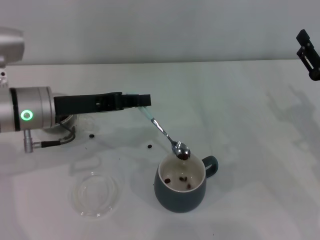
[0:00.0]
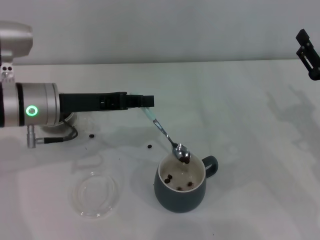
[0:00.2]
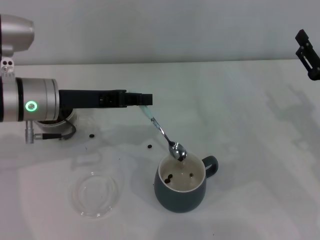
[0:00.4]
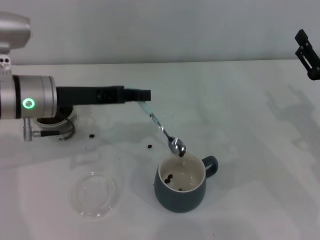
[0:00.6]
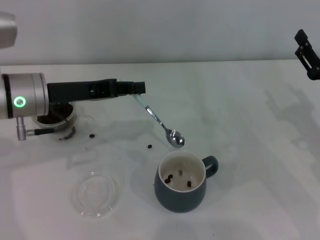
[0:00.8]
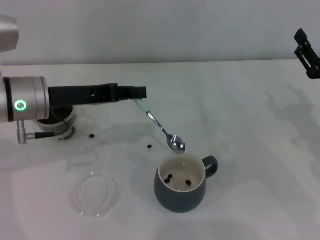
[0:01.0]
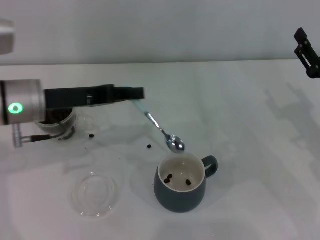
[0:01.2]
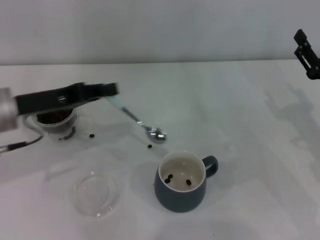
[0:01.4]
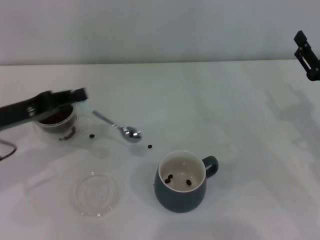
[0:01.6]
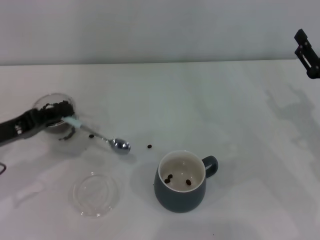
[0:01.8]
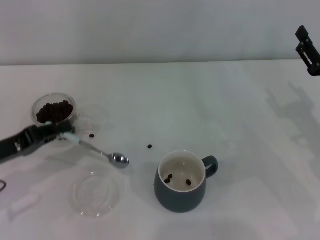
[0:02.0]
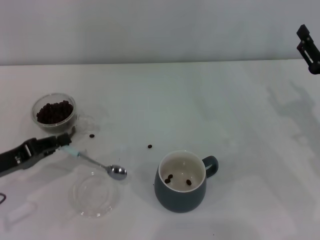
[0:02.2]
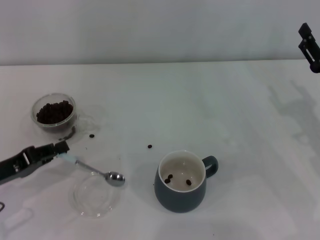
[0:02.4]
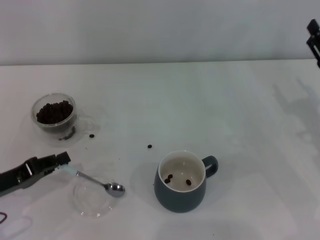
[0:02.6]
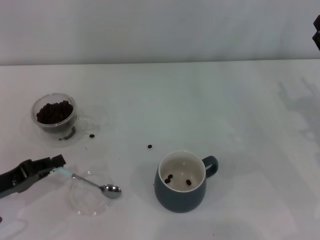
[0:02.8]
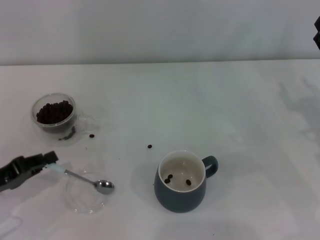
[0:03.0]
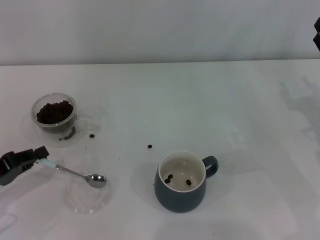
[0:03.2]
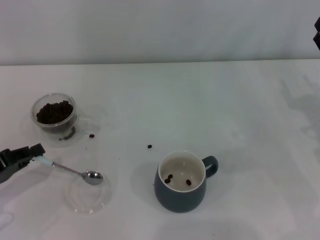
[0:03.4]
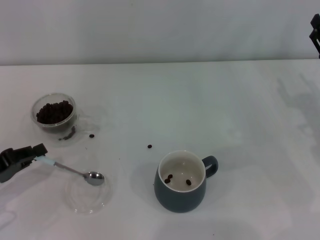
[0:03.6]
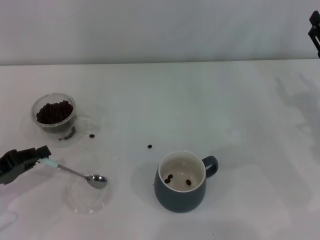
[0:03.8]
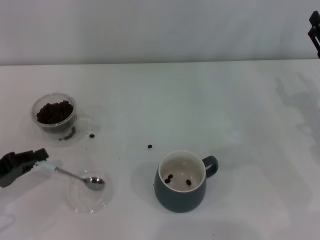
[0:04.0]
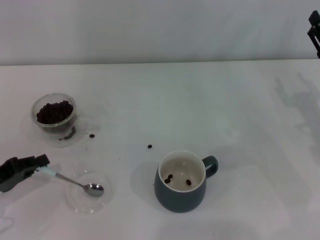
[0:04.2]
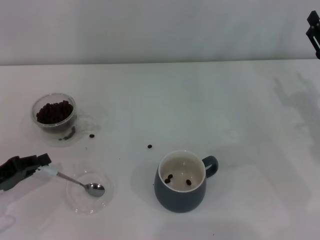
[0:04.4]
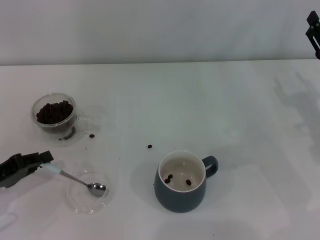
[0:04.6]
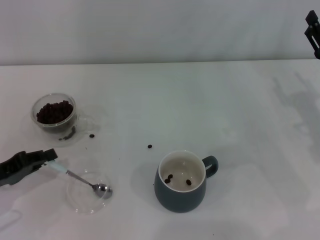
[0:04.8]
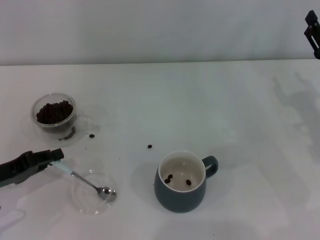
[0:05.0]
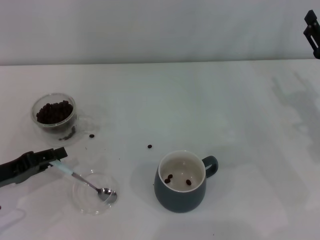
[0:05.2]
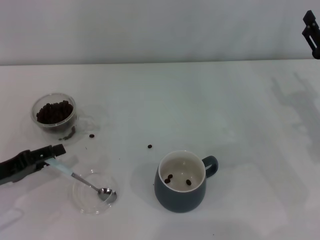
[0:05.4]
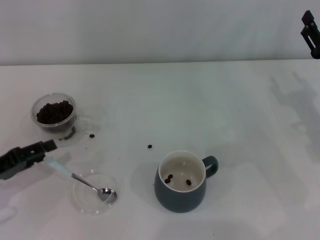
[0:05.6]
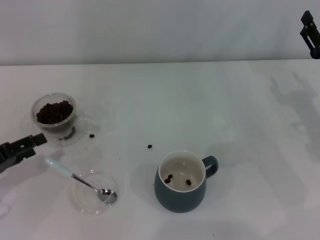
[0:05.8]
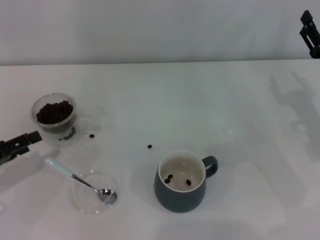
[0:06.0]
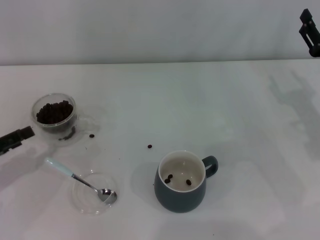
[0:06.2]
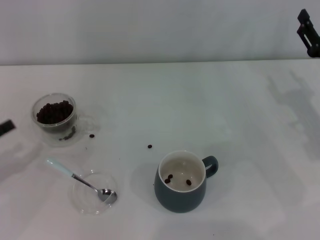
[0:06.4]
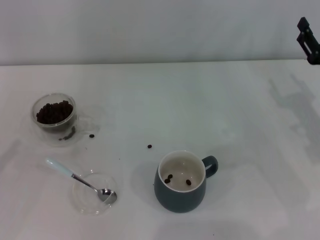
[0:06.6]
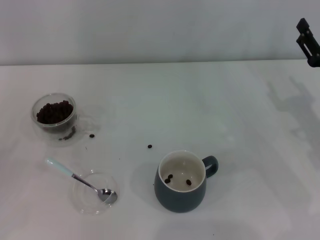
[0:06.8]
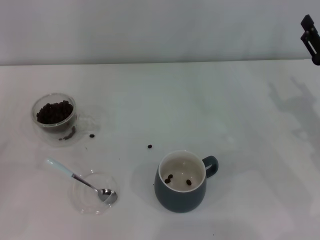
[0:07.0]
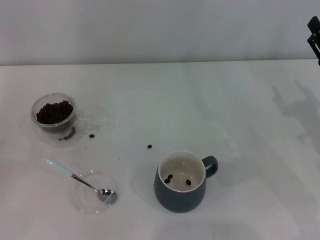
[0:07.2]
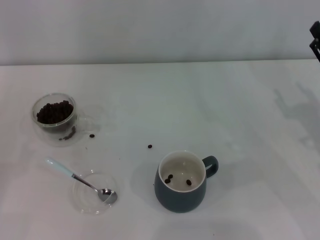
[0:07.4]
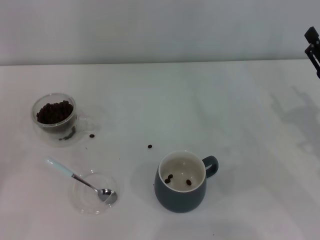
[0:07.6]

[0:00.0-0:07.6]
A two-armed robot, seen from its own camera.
Task of the whole recording: Use a blue spoon to take out the coffee beans from the glass and pour them into the gray cup.
Step, 0:01.4 to 0:05.8: Place the spoon back in its original place with the right gripper.
0:00.0 to 0:01.6: The left gripper travels to the left by roughly 10 cm.
0:01.6 to 0:03.0: The left gripper shifts about 10 cm downward and backward.
0:03.0 to 0:04.6: The grippers stay close to where they were, moving slightly.
0:04.6 to 0:06.0: The left gripper opens its fingers.
0:06.0 to 0:07.6: The left gripper is displaced to the left and backward by roughly 10 cm.

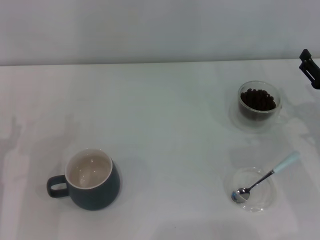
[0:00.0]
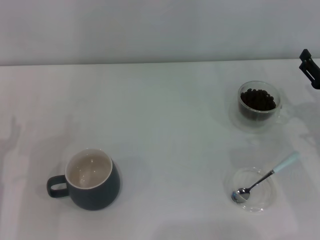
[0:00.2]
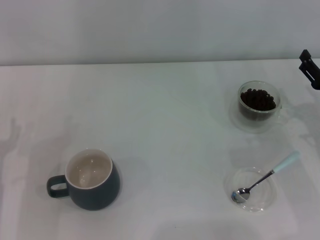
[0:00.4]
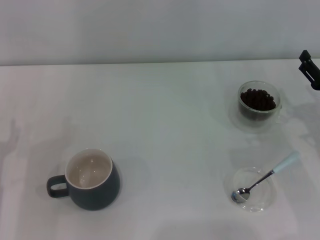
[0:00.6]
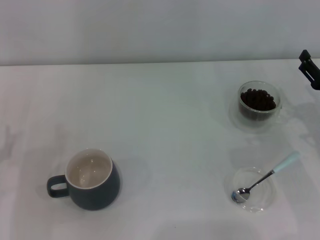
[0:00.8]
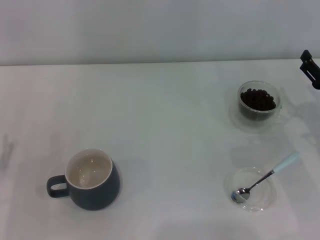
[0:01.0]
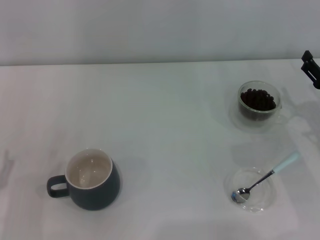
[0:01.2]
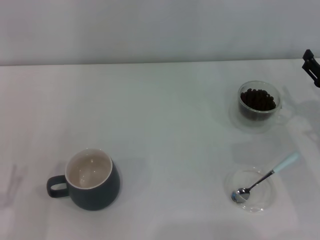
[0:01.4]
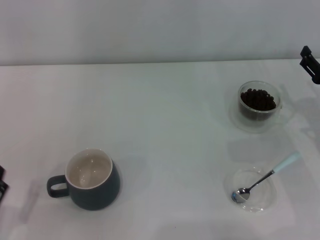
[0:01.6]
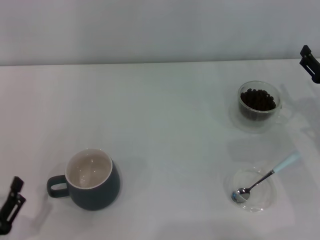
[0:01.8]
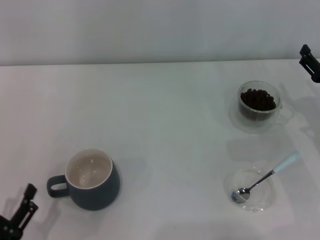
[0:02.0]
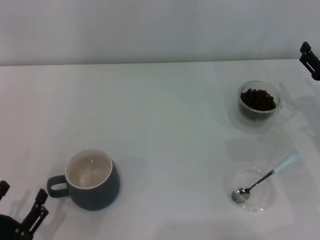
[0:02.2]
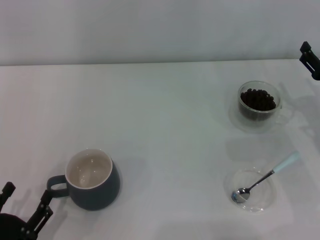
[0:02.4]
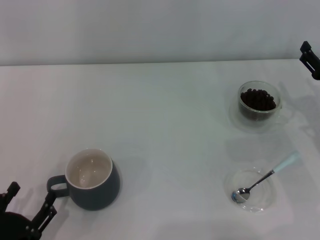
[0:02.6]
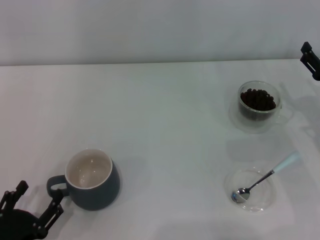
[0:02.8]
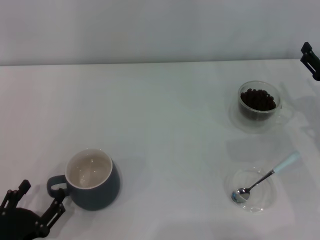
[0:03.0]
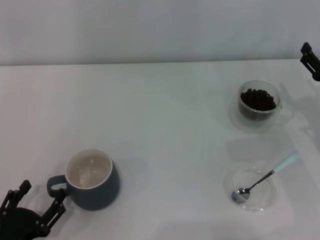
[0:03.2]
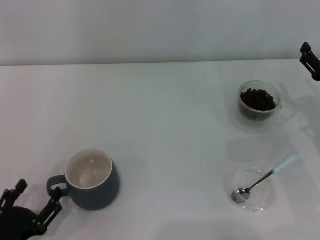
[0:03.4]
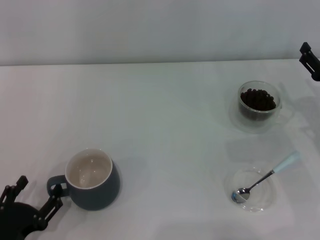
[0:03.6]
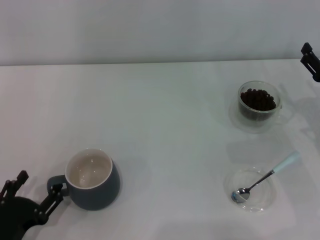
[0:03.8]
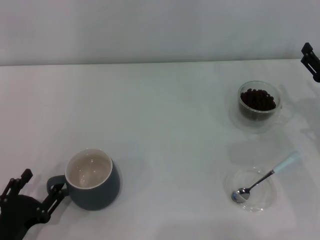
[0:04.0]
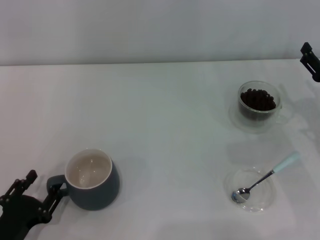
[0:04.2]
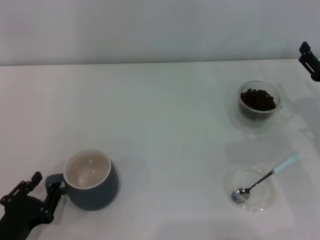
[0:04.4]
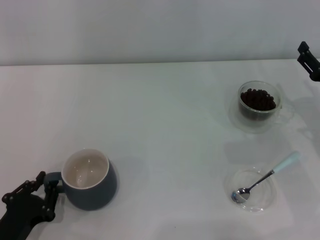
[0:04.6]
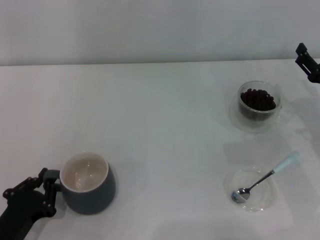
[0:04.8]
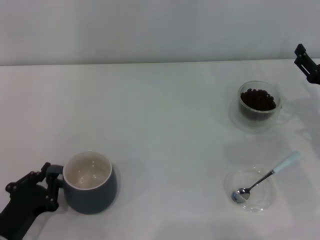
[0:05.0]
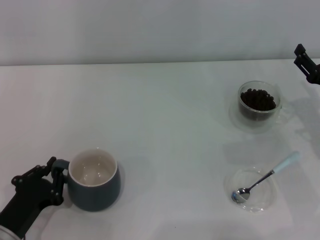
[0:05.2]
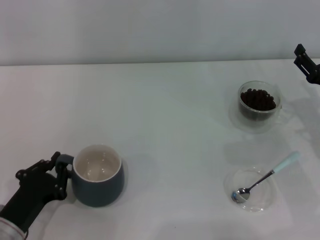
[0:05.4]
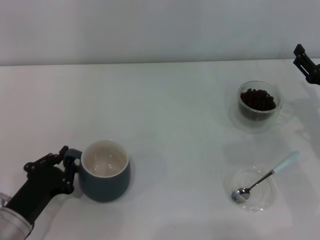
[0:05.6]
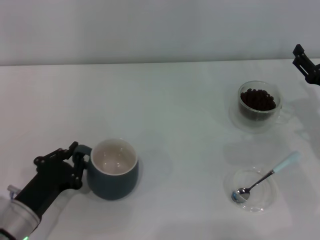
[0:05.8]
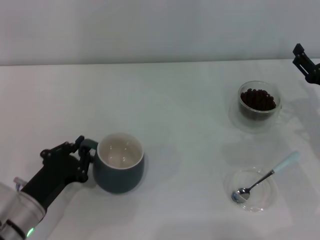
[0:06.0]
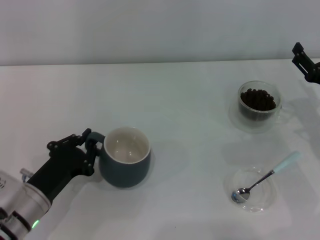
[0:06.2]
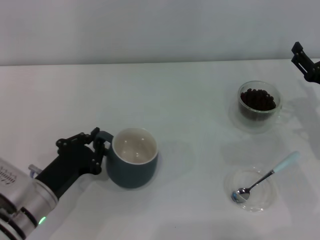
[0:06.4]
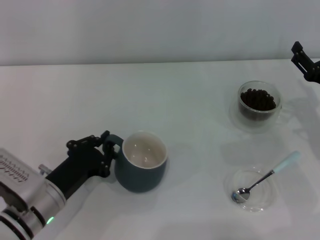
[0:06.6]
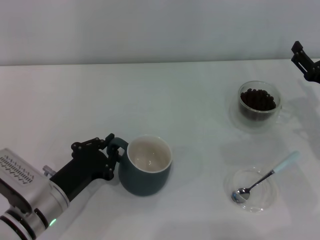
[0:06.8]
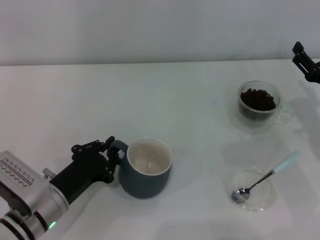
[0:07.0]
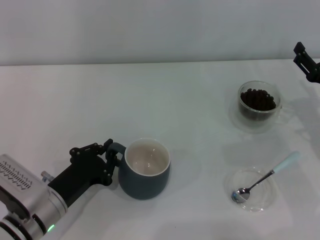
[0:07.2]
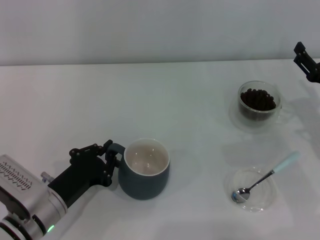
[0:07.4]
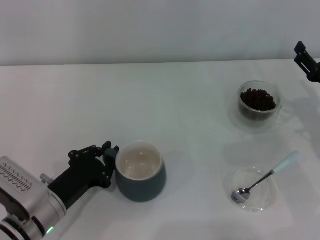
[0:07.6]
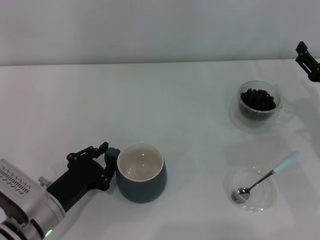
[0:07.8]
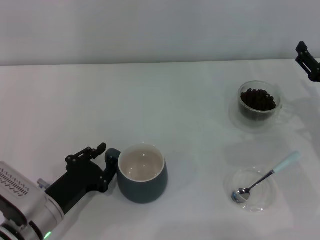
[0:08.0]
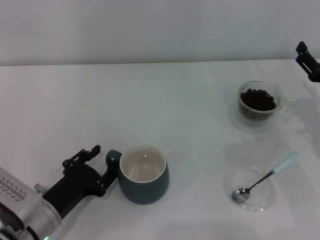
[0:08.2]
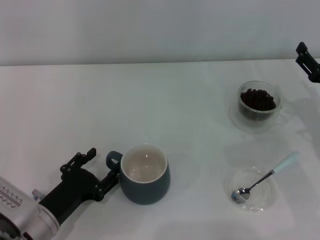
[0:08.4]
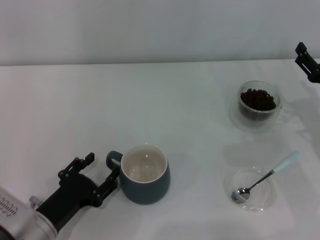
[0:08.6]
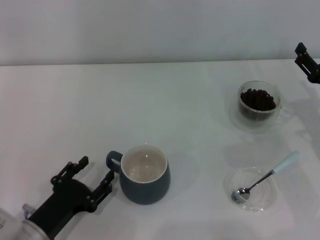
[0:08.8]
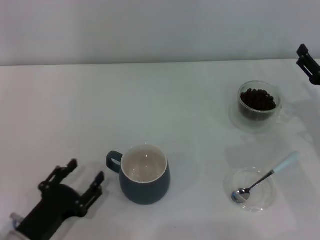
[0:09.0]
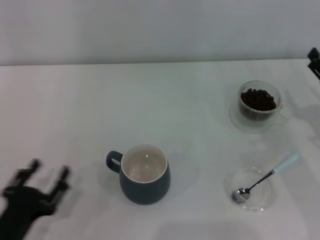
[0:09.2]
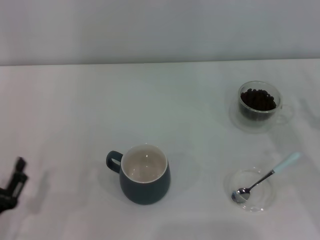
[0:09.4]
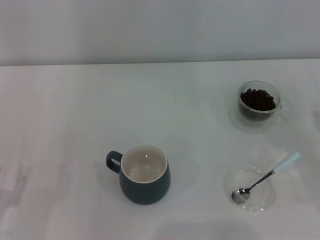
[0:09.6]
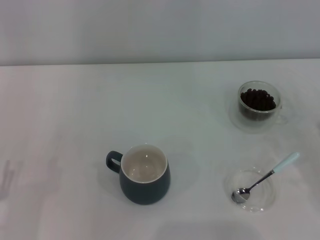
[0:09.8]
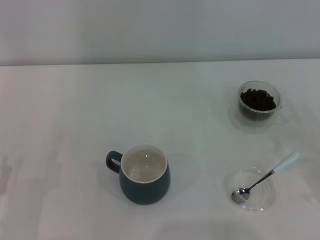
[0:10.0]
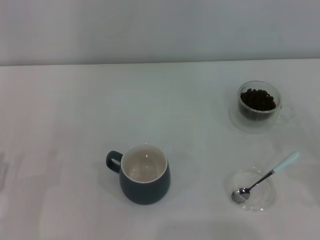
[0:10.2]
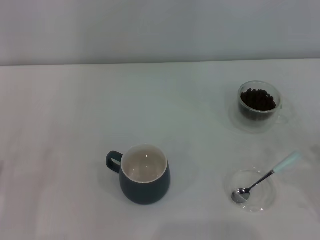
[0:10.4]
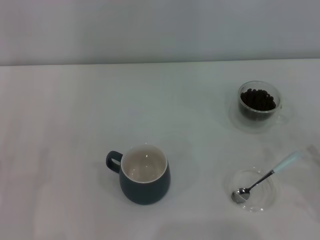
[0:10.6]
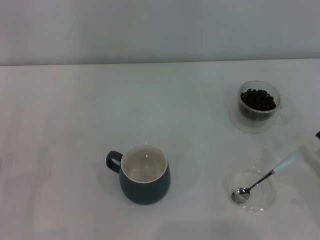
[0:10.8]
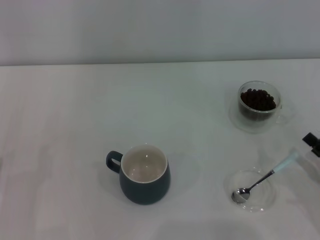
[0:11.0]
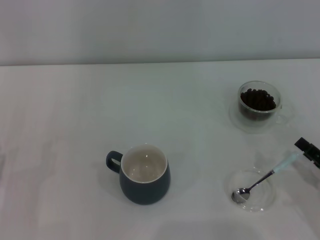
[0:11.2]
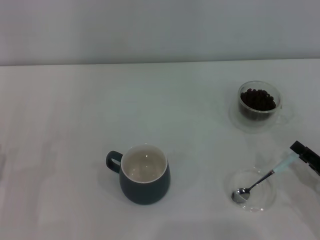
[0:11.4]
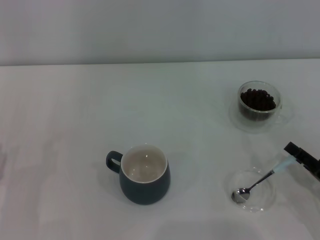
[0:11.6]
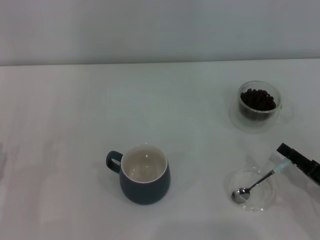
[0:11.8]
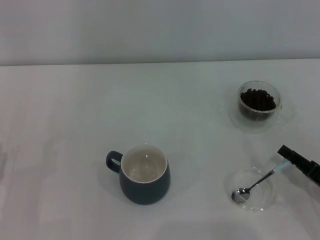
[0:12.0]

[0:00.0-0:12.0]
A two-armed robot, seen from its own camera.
Task of the whole recording: Use a blue spoon to take out the coffee beans from the glass and pour them into the gray cup.
Step, 0:00.0 to 0:08.8: Move the cup to the center of view with the left gripper.
0:01.6 to 0:04.4: The grippers stay close to where they were, moving slightly.
0:04.4 to 0:06.0: The left gripper moves forward, approximately 5 cm, and closes its fingers.
0:06.0 to 0:07.6: The grippers make only small movements.
0:07.6 to 0:09.0: The left gripper is displaced backward by some 5 cm, and opens up.
0:09.0 to 0:10.4: The right gripper is displaced backward by some 15 cm; the left gripper heads to the left, covering about 10 cm.
0:10.4 to 0:12.0: The right gripper shifts by roughly 5 cm.

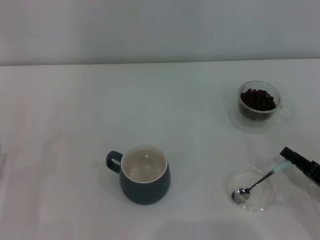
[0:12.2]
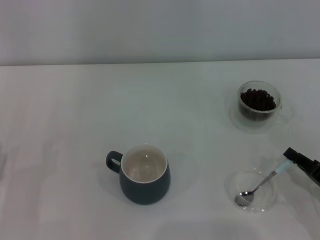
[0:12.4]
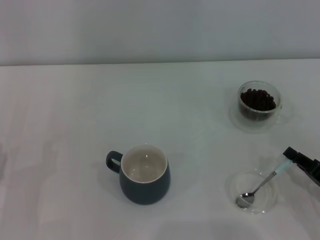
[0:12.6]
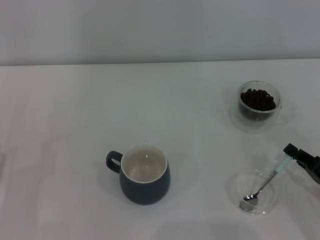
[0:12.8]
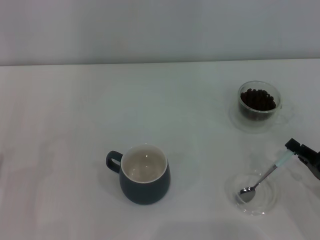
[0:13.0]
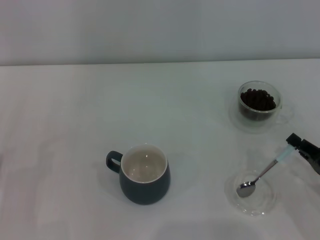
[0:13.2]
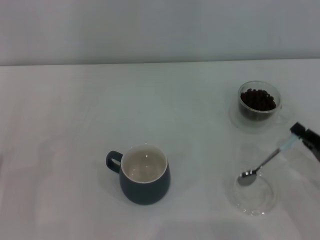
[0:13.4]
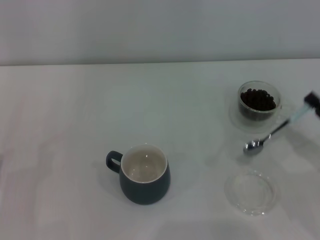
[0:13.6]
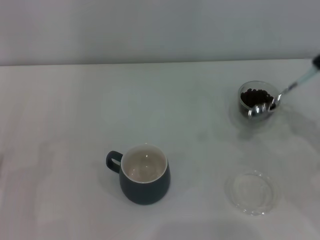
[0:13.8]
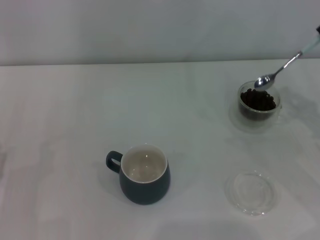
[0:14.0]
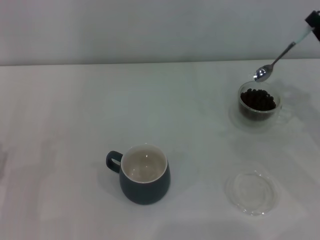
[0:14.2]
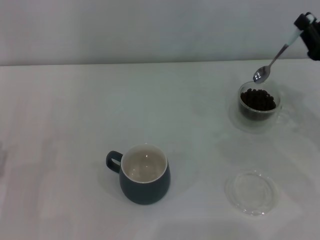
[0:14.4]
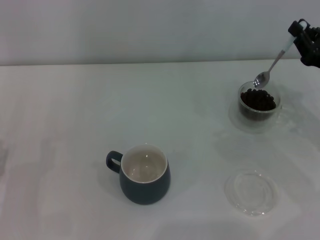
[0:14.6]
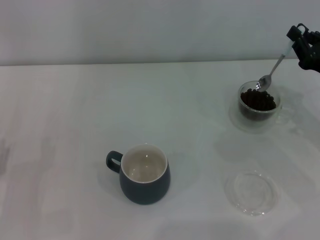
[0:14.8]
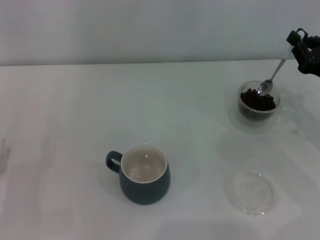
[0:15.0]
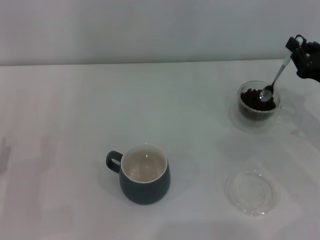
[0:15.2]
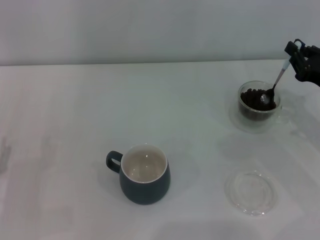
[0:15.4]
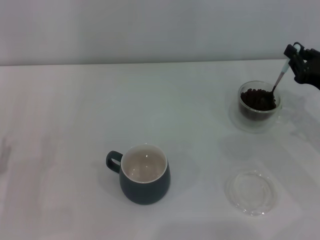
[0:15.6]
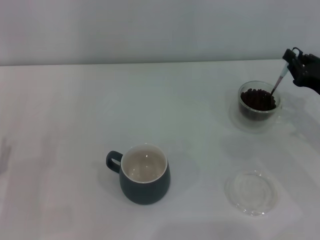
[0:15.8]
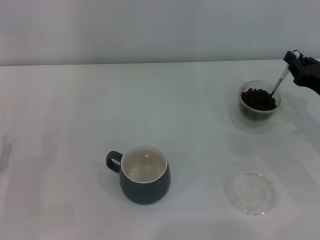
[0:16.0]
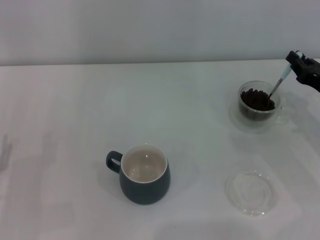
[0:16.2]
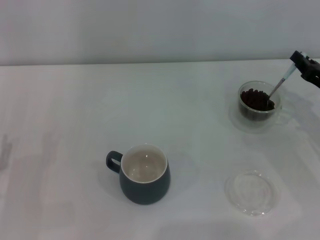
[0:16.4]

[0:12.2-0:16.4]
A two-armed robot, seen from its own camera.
Task of the whole recording: Use a blue spoon to take out the coffee beans from the glass and pour them into the gray cup.
0:12.2 to 0:13.6: The right gripper shifts by some 5 cm, and closes up.
0:13.6 to 0:15.0: The right gripper goes approximately 10 cm forward.
